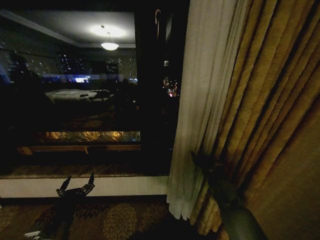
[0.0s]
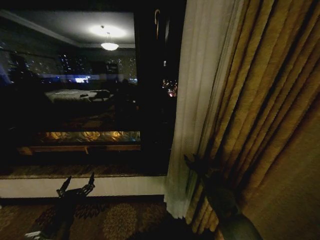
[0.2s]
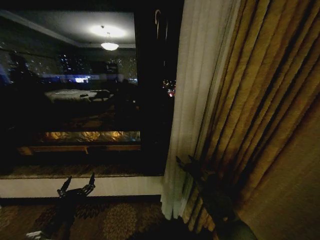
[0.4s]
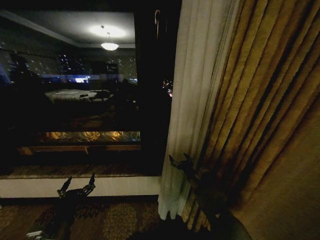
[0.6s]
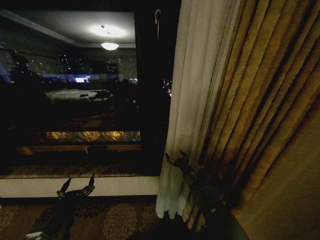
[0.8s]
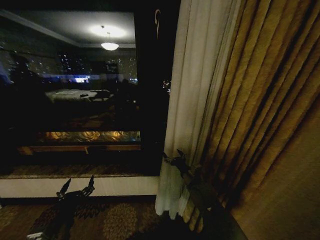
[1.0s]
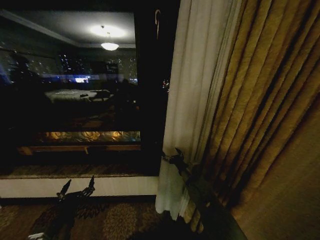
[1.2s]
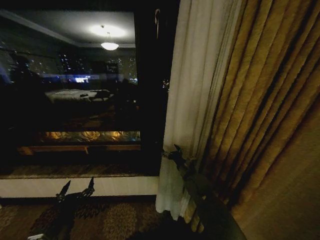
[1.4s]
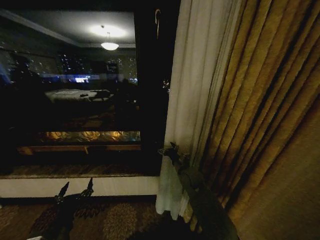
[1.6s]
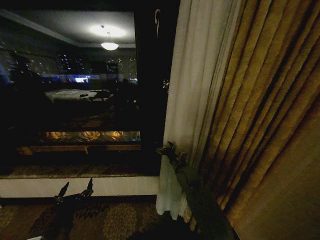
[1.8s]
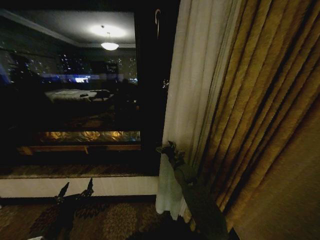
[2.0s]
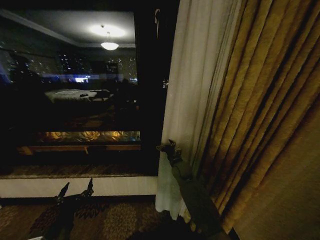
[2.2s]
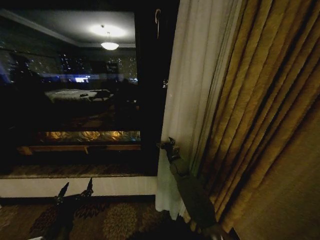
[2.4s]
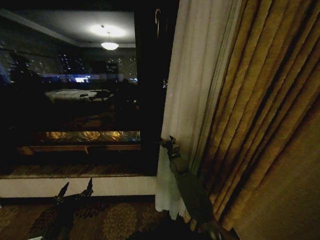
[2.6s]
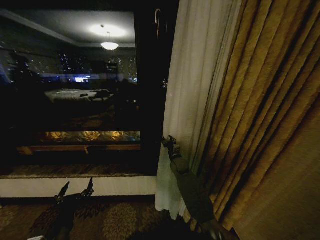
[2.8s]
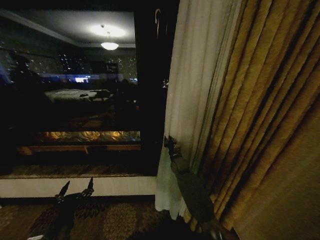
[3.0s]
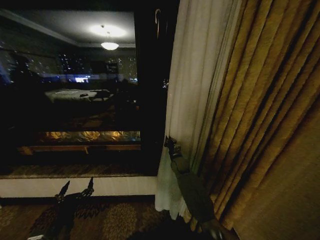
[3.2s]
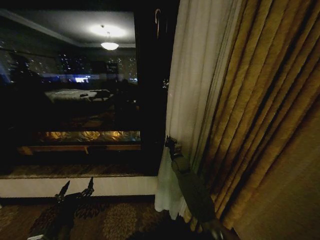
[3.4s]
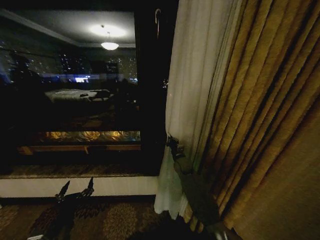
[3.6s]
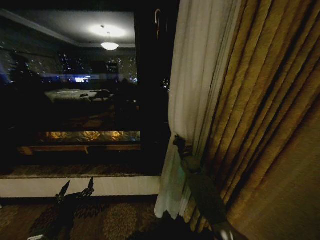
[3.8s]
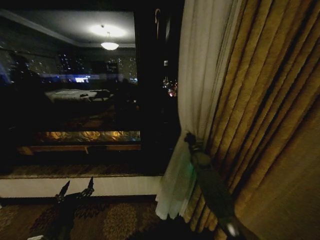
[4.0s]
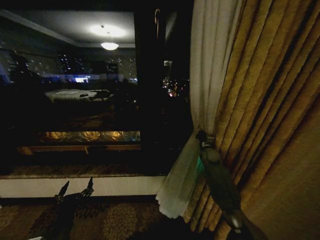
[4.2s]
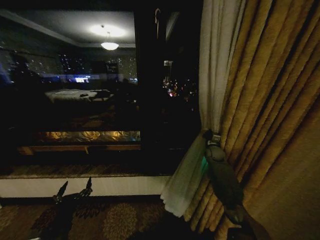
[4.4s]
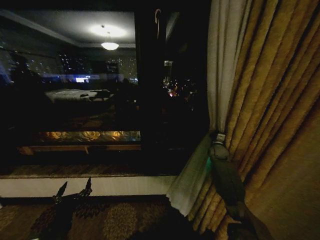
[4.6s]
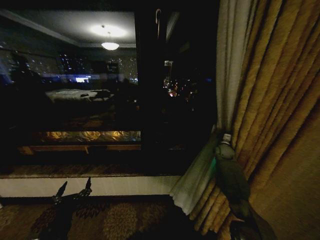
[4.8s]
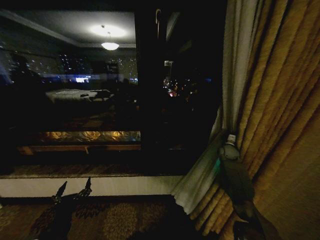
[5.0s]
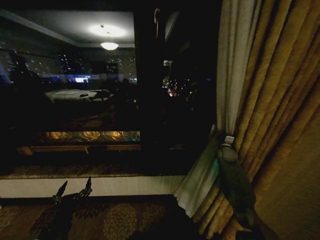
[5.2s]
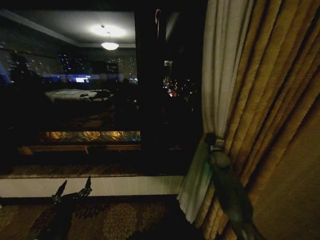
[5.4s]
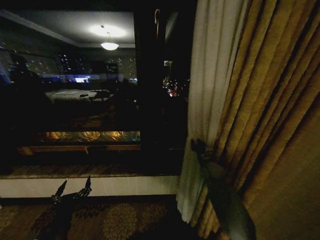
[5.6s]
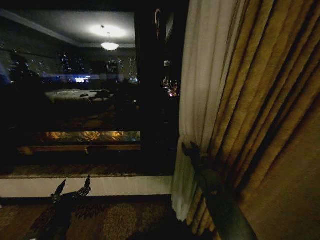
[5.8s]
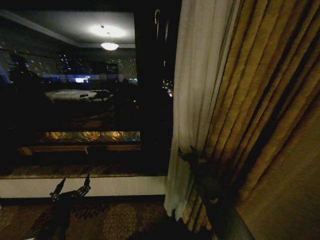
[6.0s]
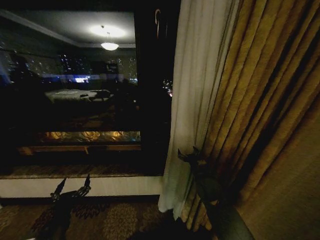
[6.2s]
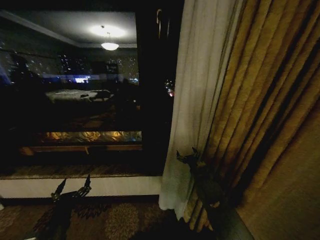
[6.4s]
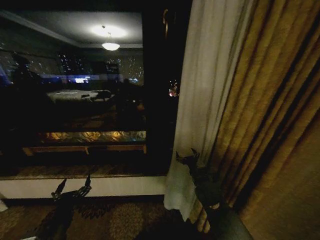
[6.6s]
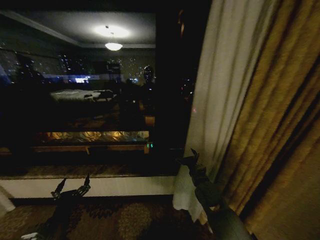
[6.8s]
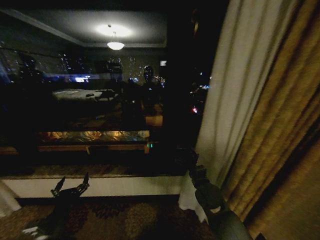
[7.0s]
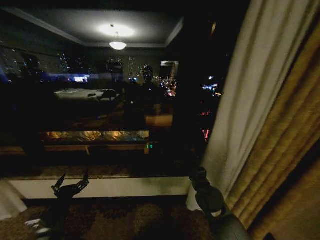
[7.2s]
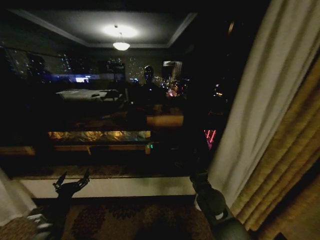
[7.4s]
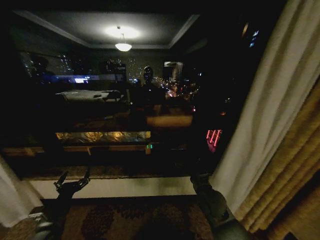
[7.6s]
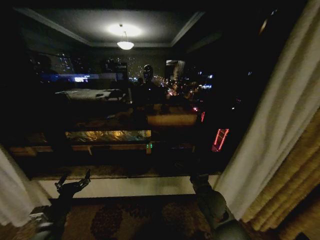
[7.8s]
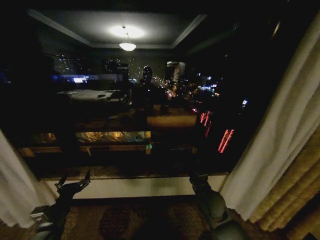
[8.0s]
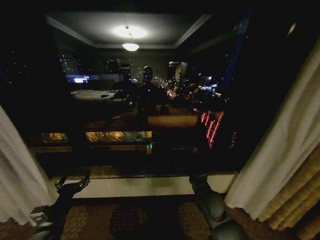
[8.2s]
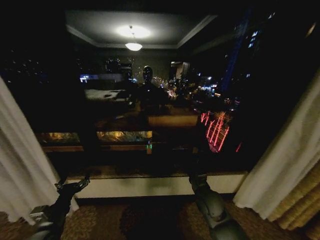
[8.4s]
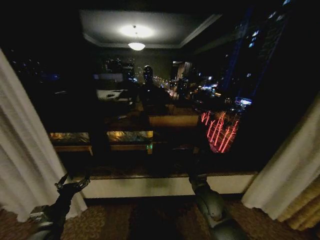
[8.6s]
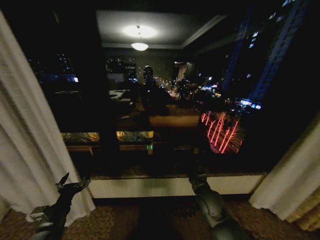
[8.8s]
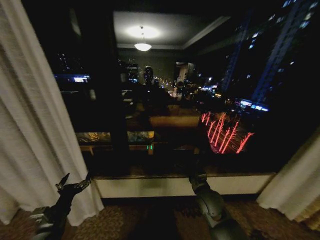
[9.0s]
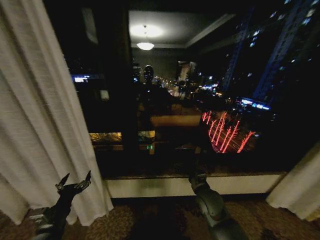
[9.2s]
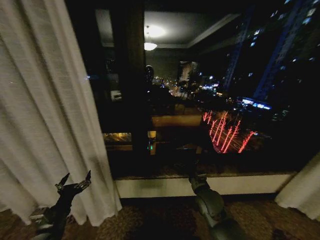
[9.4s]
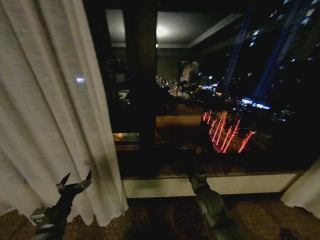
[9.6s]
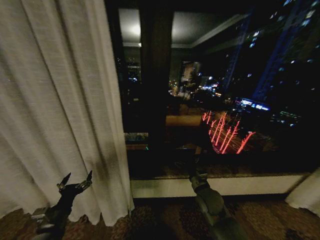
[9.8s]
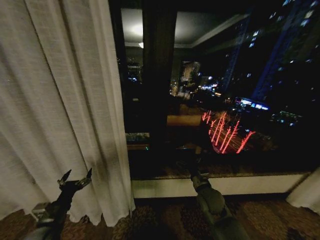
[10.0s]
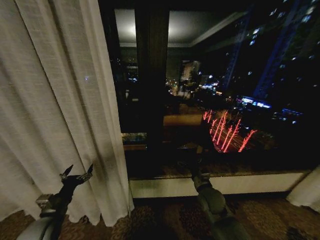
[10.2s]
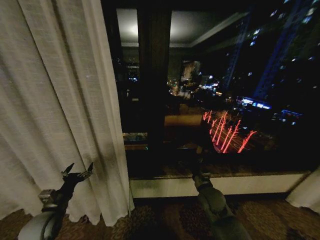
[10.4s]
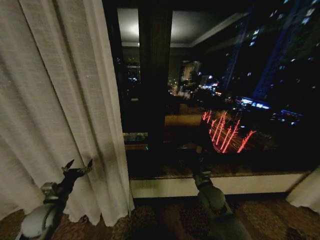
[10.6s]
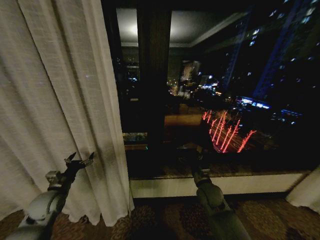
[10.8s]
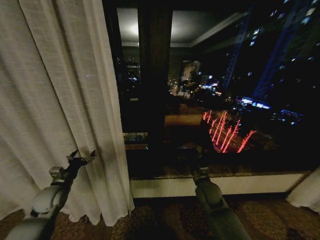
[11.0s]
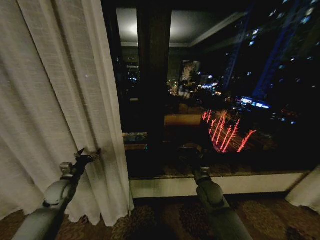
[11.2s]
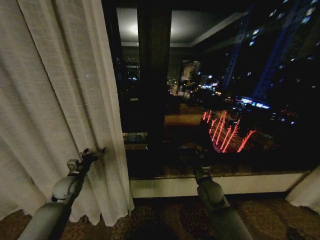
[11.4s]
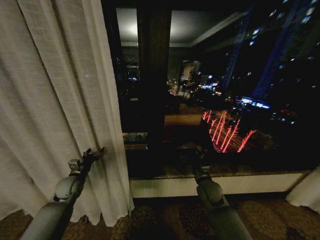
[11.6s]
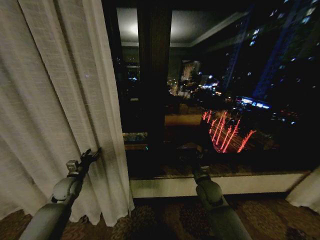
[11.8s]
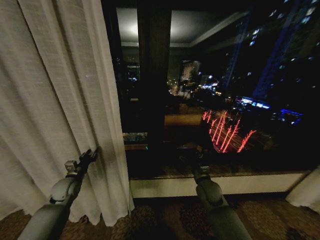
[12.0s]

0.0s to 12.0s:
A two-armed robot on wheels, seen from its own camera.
Task of the whole recording: Open the curtains by pulling them apart, changing their state from closed to fully open.
0.0s to 1.6s: The right gripper shifts some 15 cm to the left, and opens its fingers.
1.6s to 3.0s: The right gripper moves forward, roughly 10 cm, and closes its fingers.
3.0s to 4.4s: The right gripper goes approximately 20 cm to the right.
4.4s to 6.0s: The right gripper shifts approximately 20 cm backward and to the left, and opens.
6.0s to 7.6s: The right gripper is displaced backward by roughly 5 cm, while the left gripper changes place by roughly 5 cm.
9.0s to 10.4s: The left gripper is displaced forward by about 5 cm.
10.4s to 12.0s: The left gripper heads forward, covering roughly 15 cm, and closes.

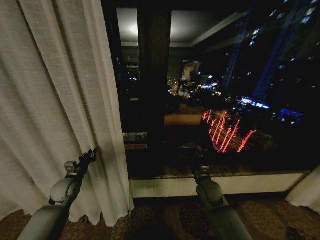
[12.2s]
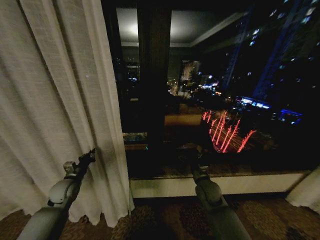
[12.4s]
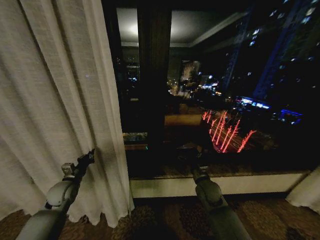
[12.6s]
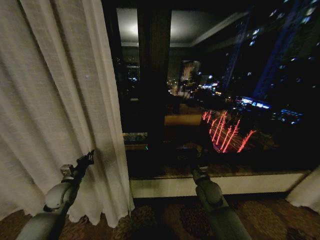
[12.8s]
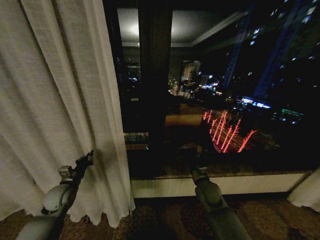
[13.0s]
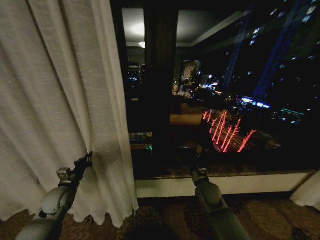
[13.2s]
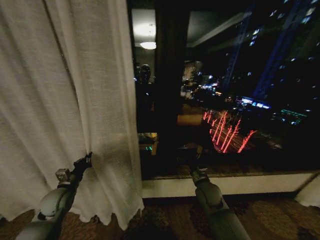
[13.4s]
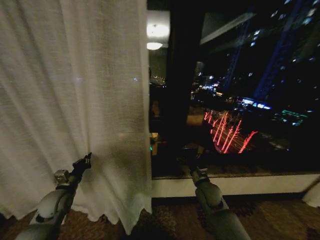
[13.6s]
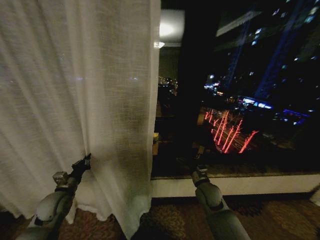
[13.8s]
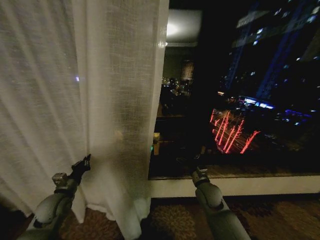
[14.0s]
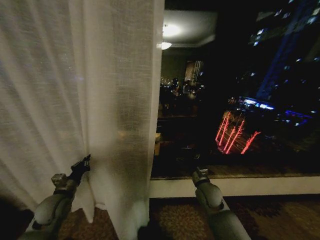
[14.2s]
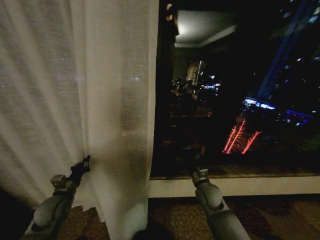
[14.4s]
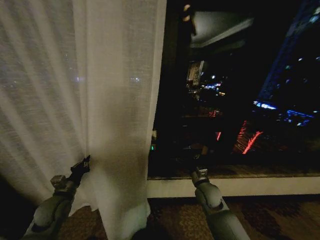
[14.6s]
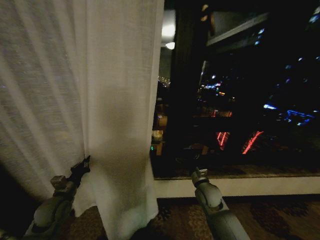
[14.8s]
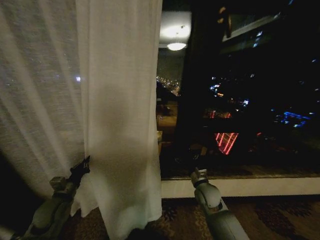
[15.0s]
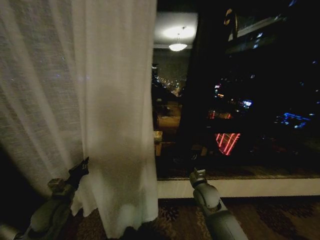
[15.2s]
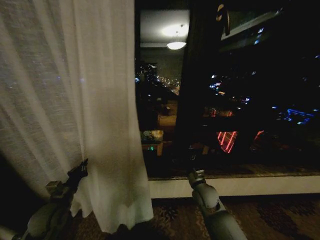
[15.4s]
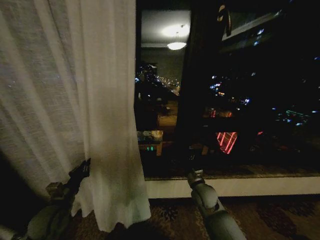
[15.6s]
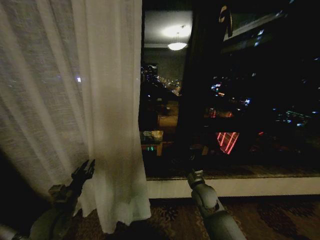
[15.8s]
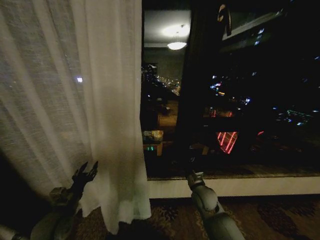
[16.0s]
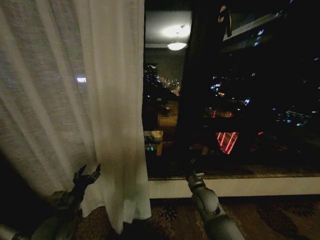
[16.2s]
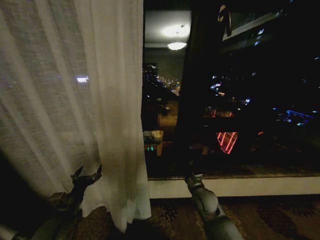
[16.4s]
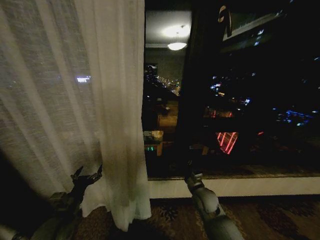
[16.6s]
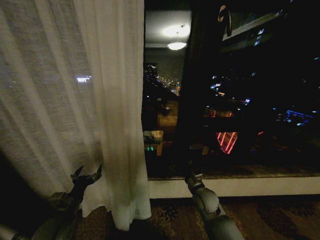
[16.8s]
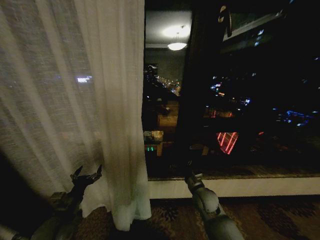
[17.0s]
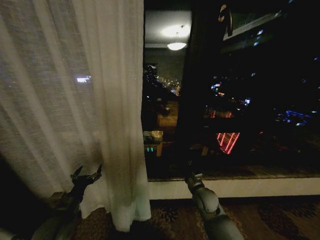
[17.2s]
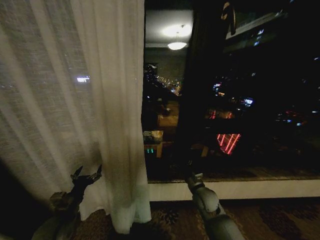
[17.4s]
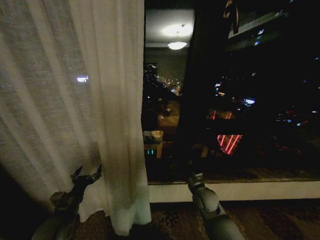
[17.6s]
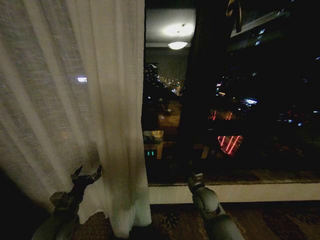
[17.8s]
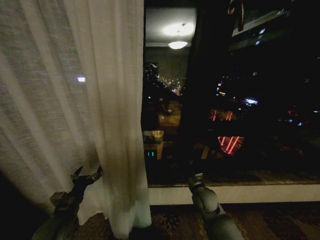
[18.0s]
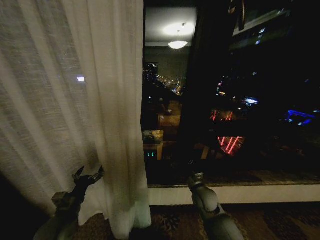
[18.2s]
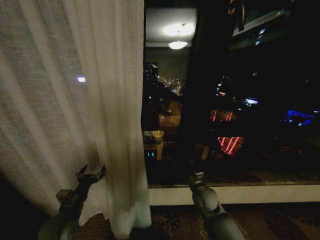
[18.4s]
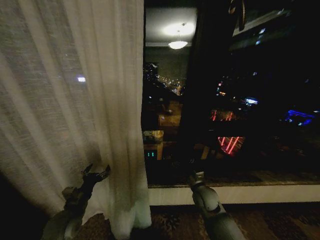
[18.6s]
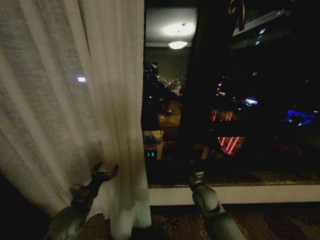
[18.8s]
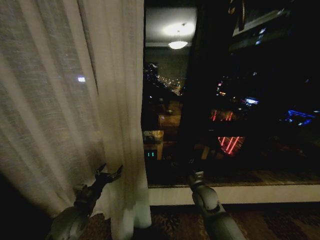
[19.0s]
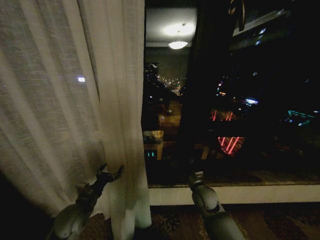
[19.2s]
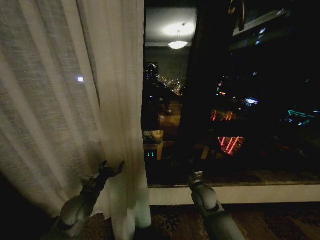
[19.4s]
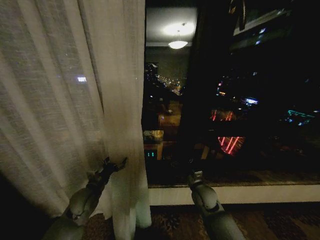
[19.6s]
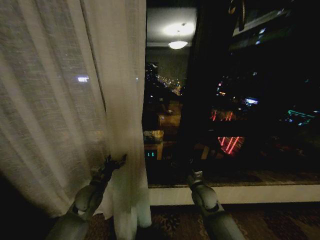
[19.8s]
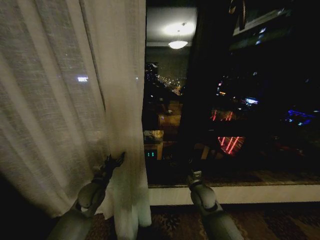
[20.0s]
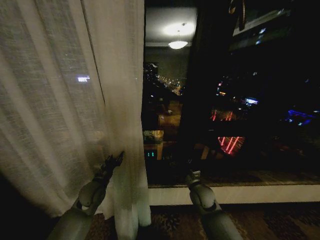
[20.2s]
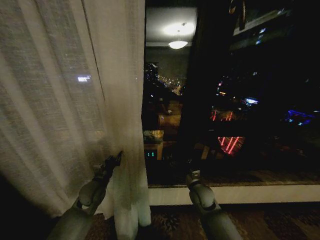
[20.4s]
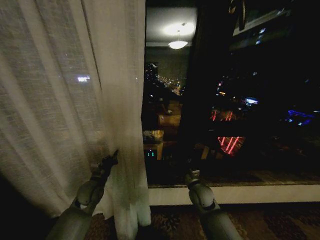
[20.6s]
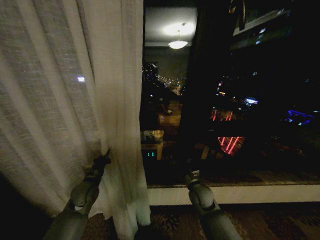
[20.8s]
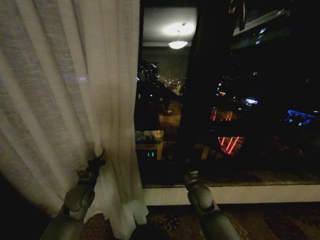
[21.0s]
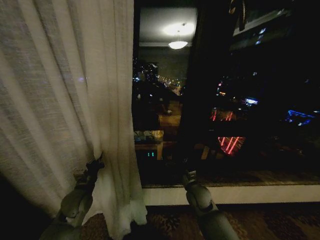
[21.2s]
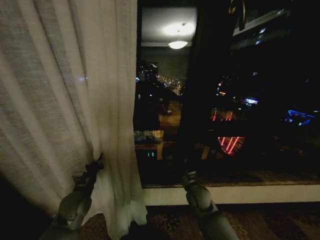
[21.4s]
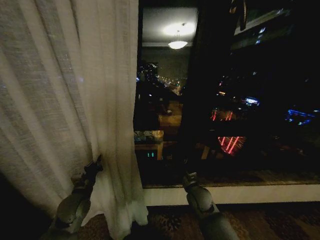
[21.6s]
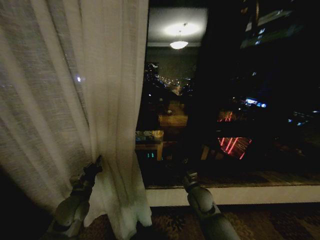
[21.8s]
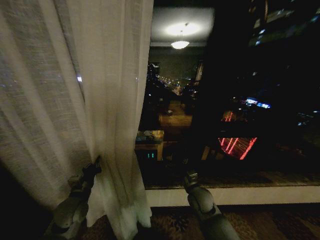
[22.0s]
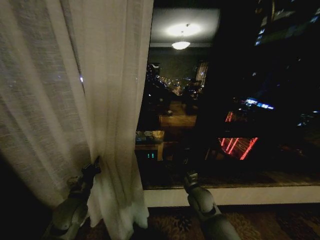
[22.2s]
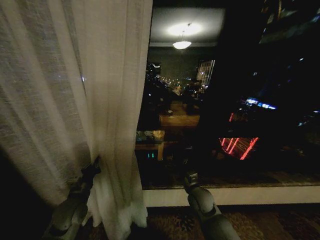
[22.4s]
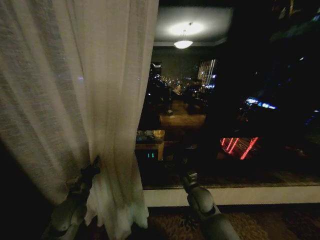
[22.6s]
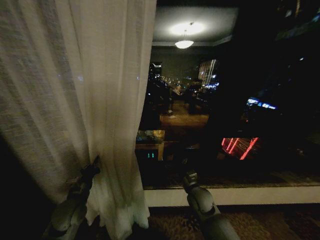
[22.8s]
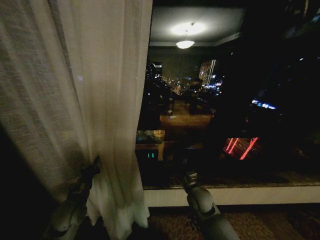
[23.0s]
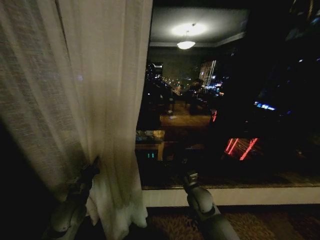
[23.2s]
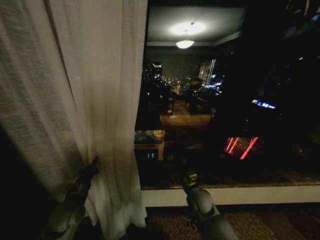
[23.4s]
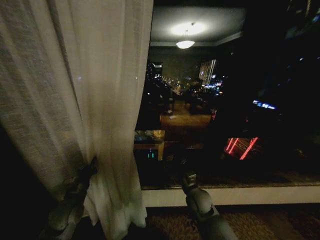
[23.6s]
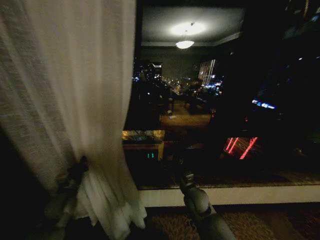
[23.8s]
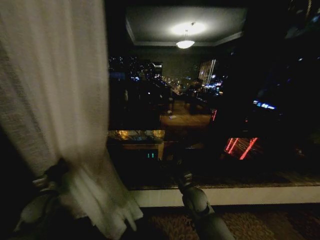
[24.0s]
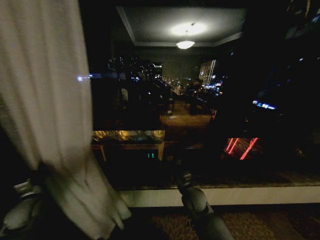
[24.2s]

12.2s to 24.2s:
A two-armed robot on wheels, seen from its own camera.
Task of the whole recording: Open the curtains by pulling them apart, changing their state from closed to fully open.
12.2s to 13.8s: The left gripper goes about 5 cm backward.
15.2s to 16.6s: The left gripper is displaced backward by approximately 5 cm, and opens up.
16.6s to 18.2s: Both grippers stay about where they are.
18.2s to 19.8s: The left gripper heads forward and to the right, covering about 10 cm.
19.8s to 21.2s: The left gripper closes up.
21.2s to 22.6s: The grippers move only a little.
22.6s to 24.2s: The left gripper shifts some 15 cm to the left.
